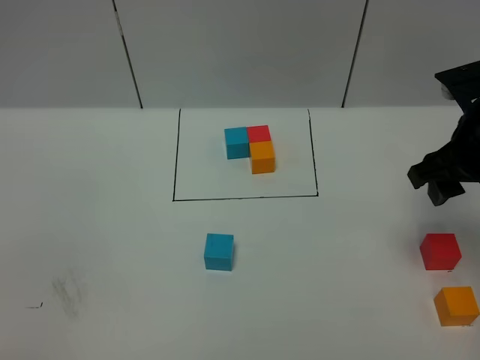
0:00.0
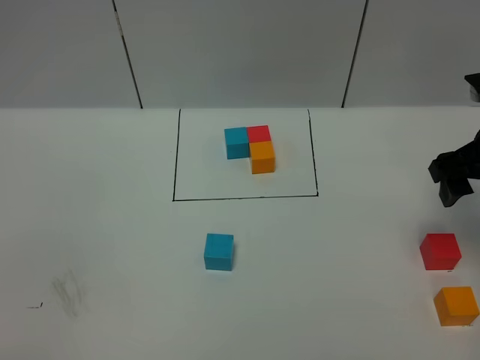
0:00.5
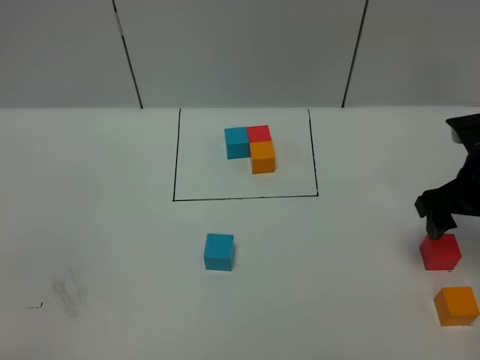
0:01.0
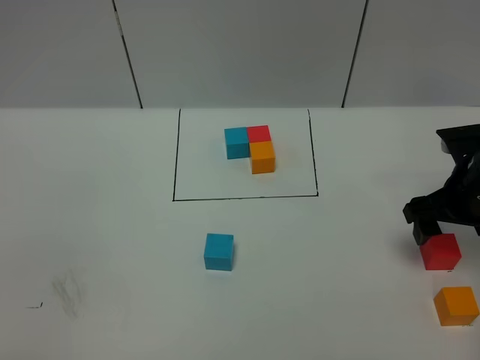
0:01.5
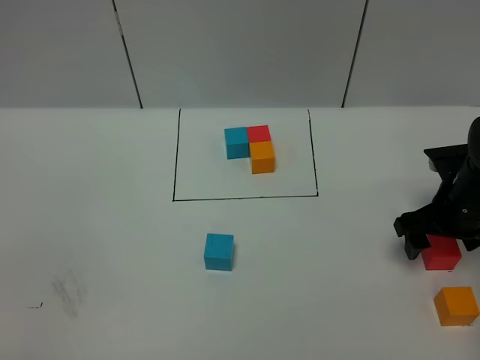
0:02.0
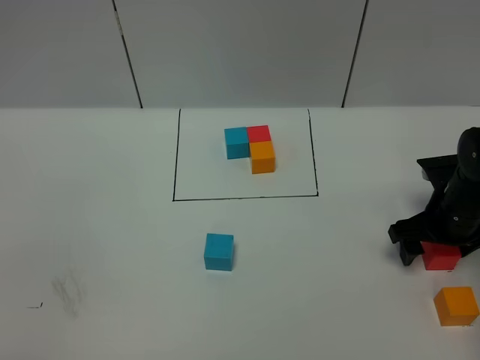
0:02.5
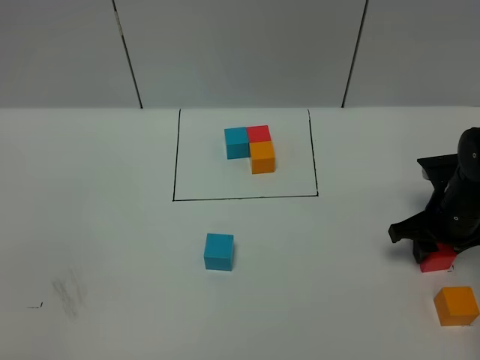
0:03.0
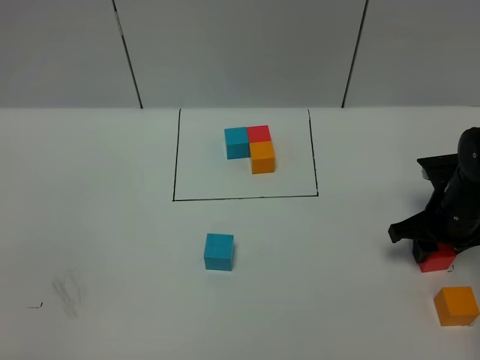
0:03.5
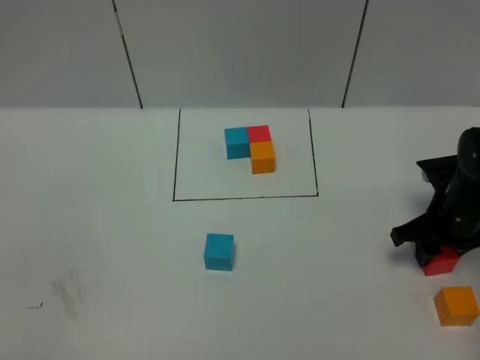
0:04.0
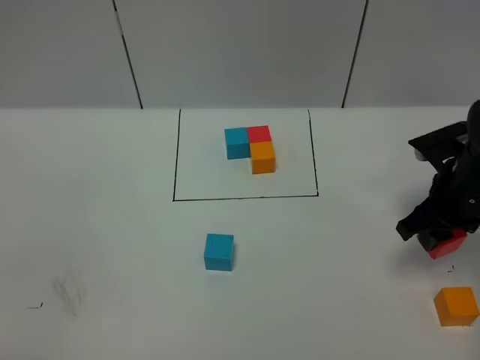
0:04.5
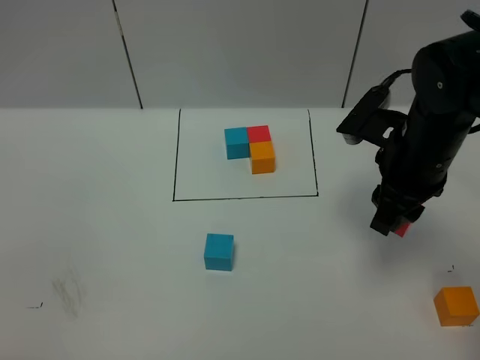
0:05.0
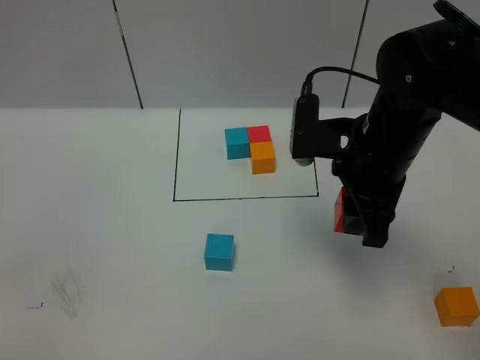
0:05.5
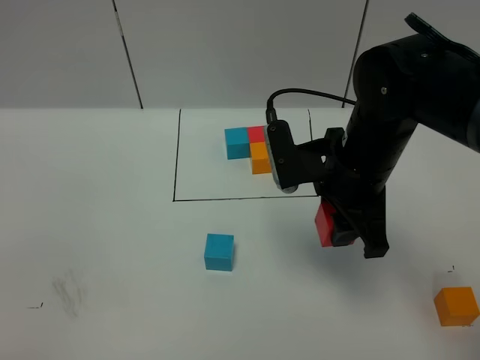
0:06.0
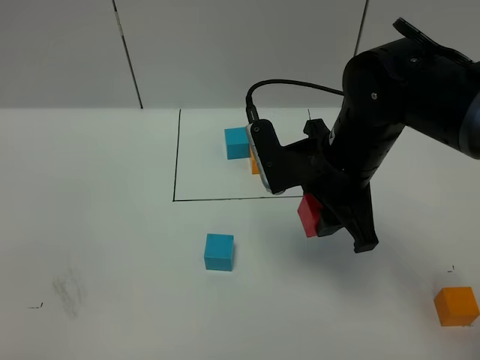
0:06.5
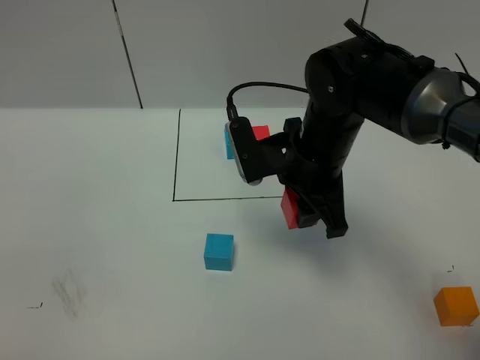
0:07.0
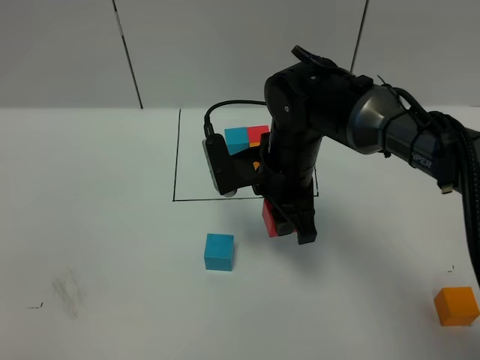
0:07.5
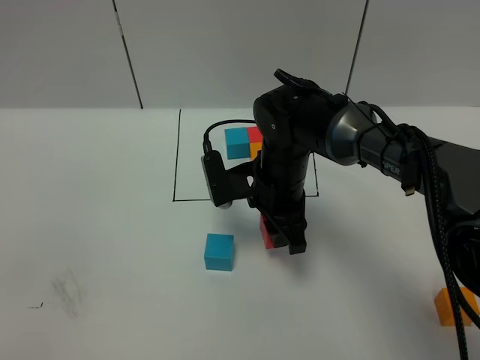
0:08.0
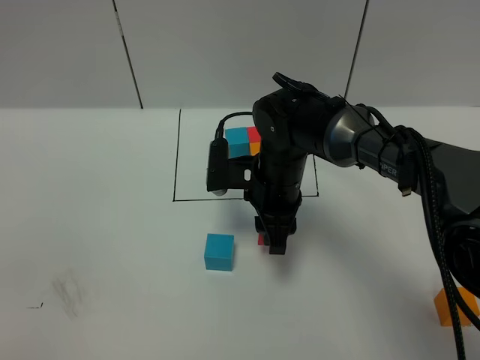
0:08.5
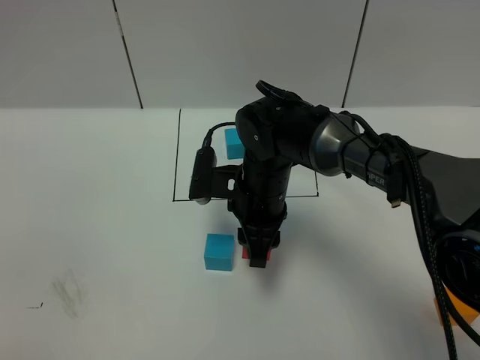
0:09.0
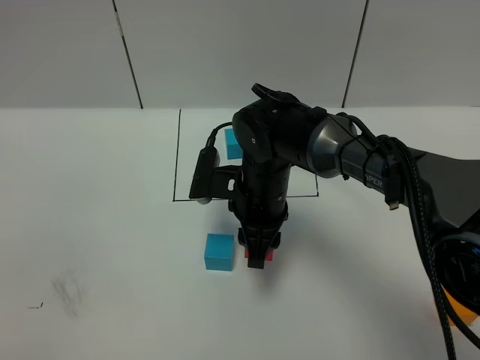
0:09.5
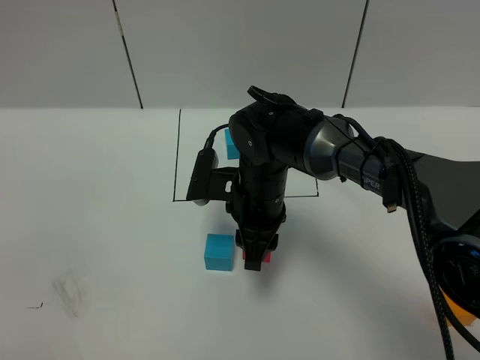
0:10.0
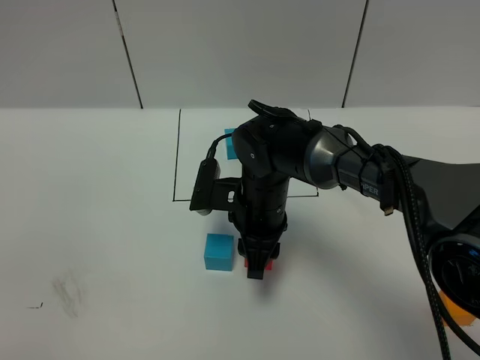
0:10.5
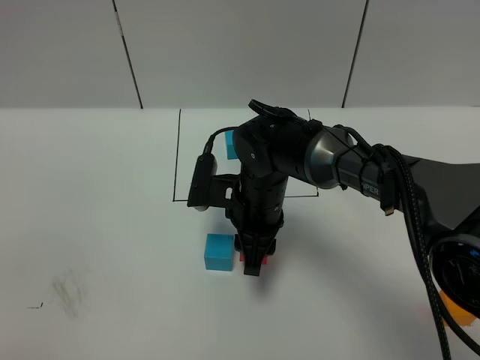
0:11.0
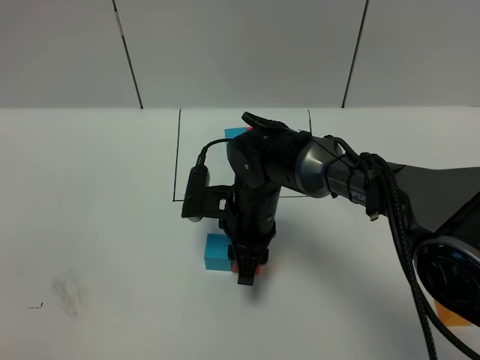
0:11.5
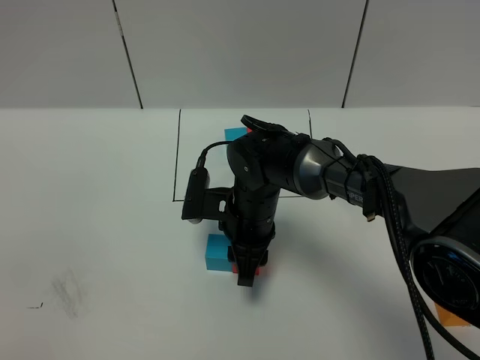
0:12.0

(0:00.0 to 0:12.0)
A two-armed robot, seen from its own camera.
Task of the whole recording: According to the building block template in front, assemble the scattered blocks together.
0:00.0 - 0:02.0: The right gripper heads downward, covering some 15 cm, and opens.
0:02.0 - 0:04.0: The right gripper closes its fingers.
0:04.0 - 0:06.0: The right gripper shifts some 20 cm to the left and upward.
0:06.0 - 0:08.0: The right gripper travels downward, to the left and forward by approximately 15 cm.
0:10.0 - 0:12.0: The grippers make only small movements.

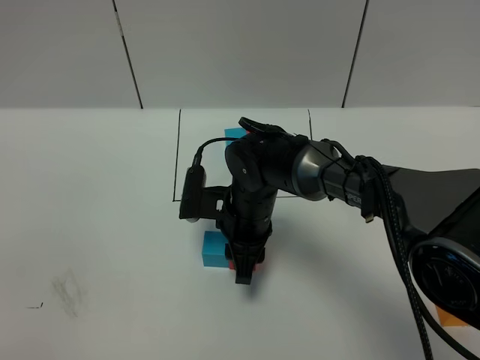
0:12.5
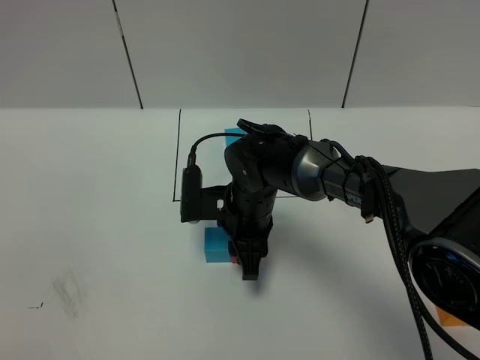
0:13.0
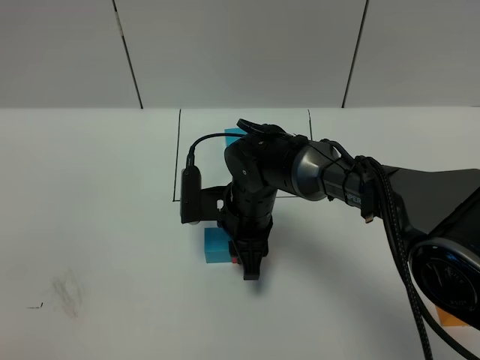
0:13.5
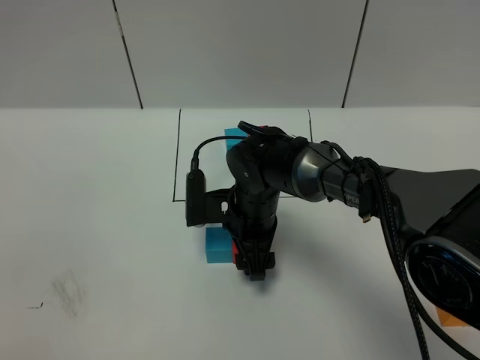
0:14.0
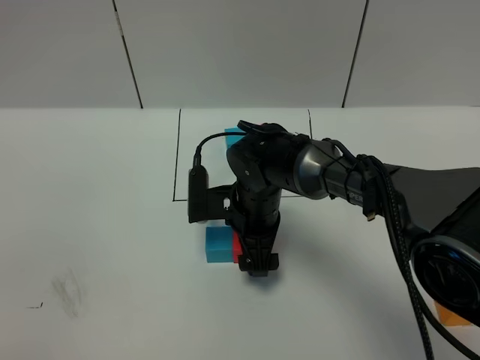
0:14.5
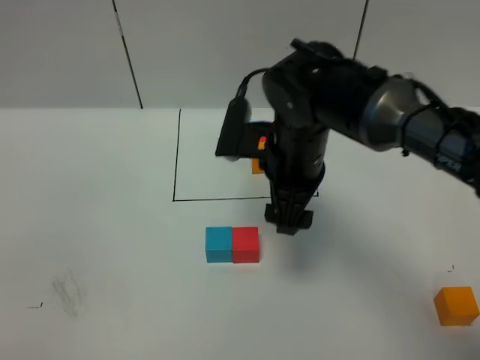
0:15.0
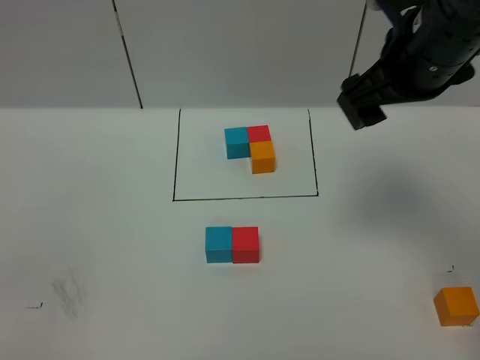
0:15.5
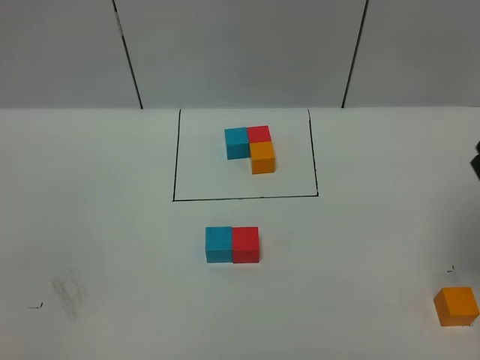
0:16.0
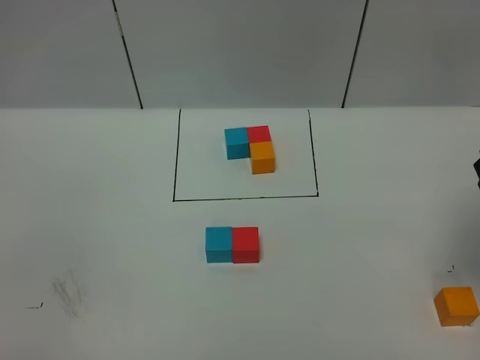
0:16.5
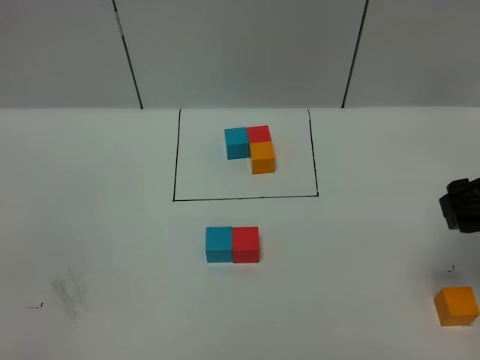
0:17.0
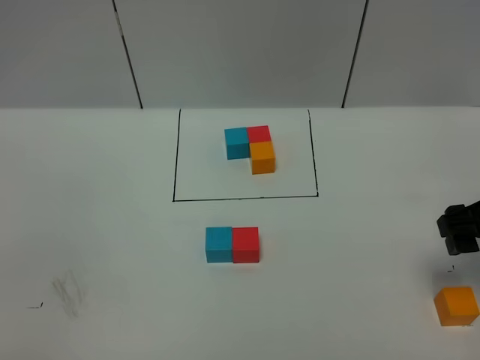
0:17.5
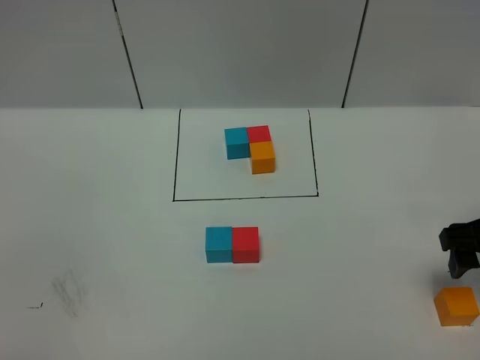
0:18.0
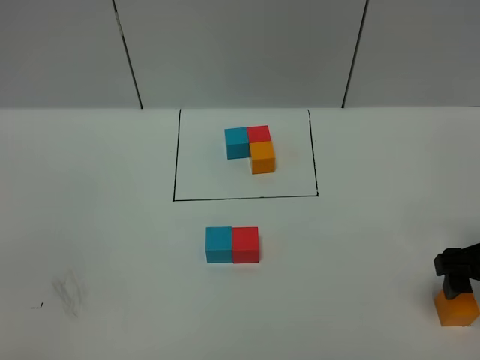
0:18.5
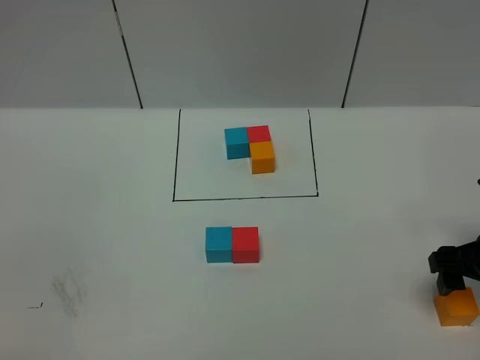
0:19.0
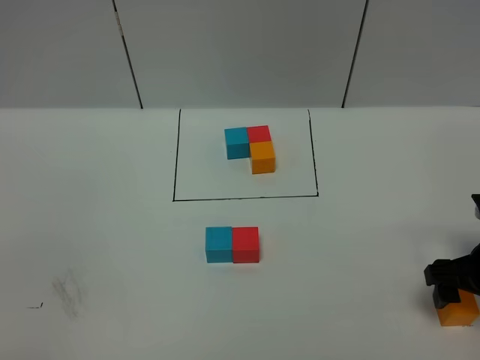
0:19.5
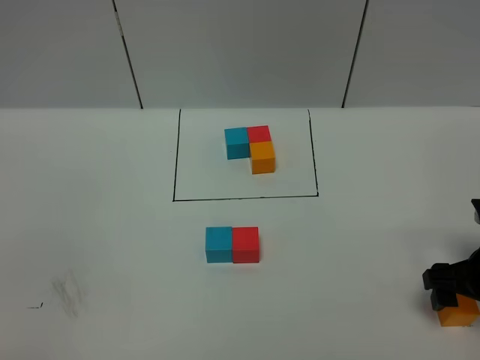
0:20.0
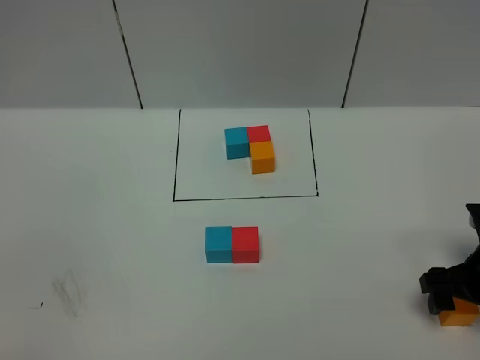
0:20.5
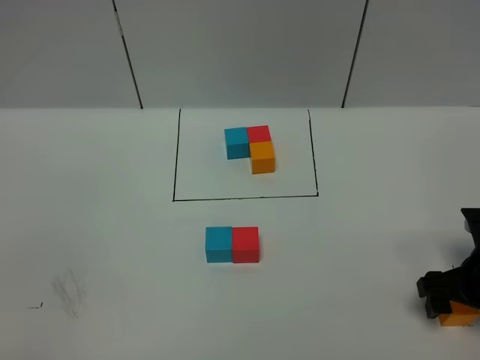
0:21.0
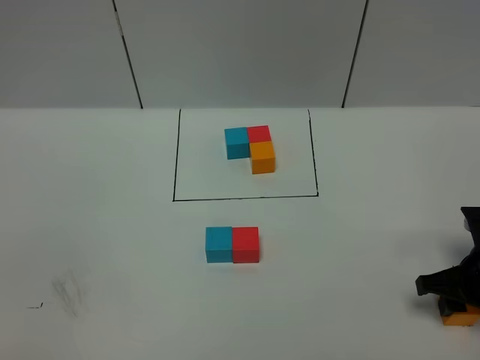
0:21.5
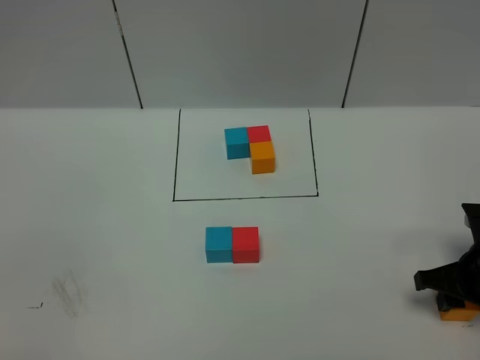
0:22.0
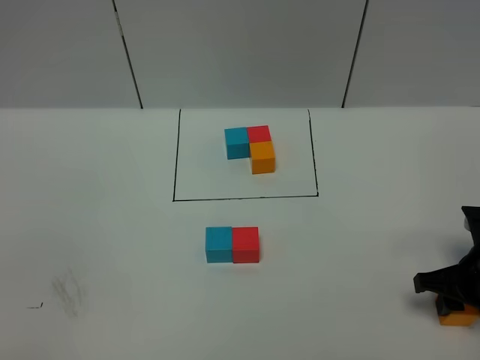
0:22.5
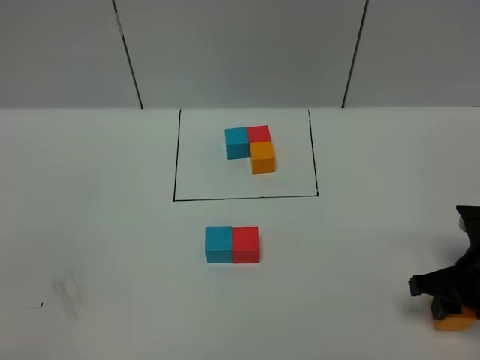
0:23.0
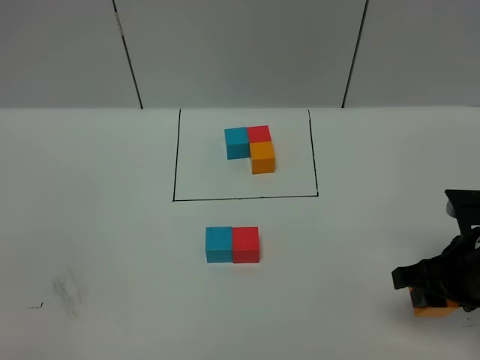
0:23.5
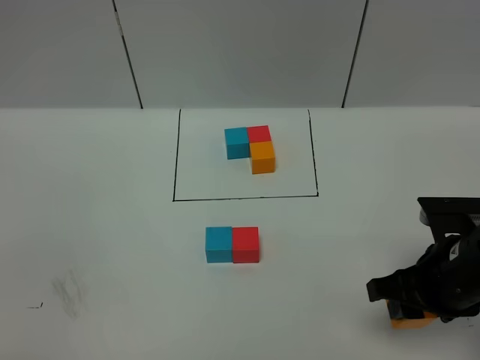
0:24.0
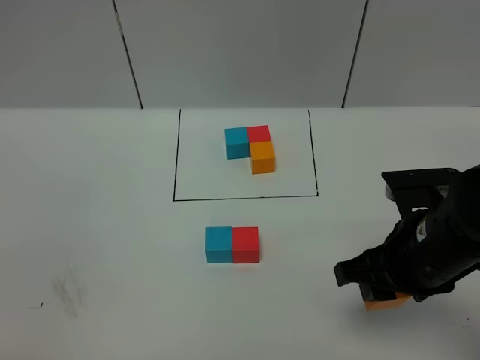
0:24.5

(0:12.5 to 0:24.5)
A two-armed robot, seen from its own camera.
Task of the whole recording: According to the building block template in front, assemble the scattered blocks together.
Step, 0:12.5 - 0:14.5: Put the red cube on the right of the blue cube.
0:12.5 - 0:14.5: The right gripper opens its fingers.
0:14.5 - 0:16.5: The right gripper is displaced to the right and upward by about 35 cm.
0:16.5 - 0:18.5: The right gripper heads downward, covering some 15 cm.
0:18.5 - 0:20.5: There are only small adjustments of the grippers.
0:20.5 - 0:22.5: The right gripper closes up.
0:22.5 - 0:24.5: The right gripper shifts some 15 cm to the left and upward.

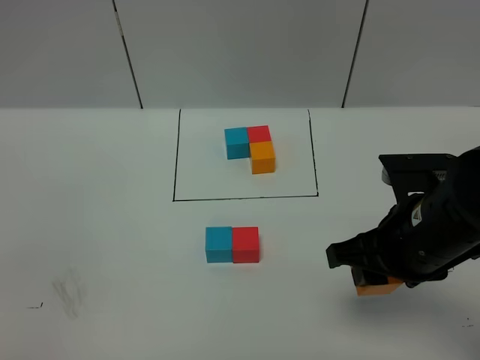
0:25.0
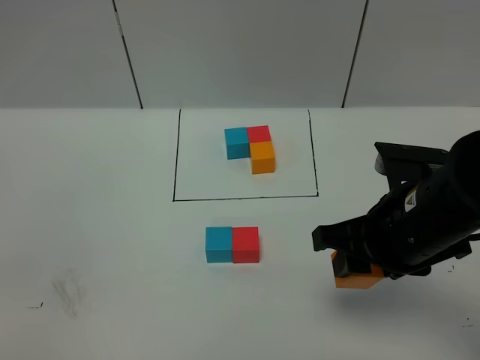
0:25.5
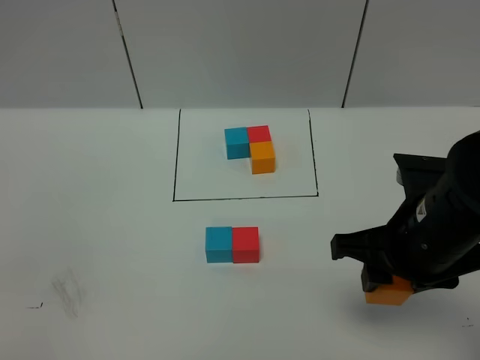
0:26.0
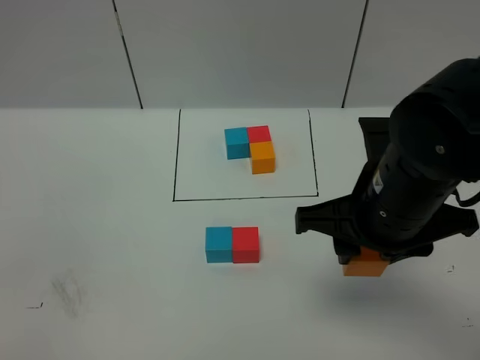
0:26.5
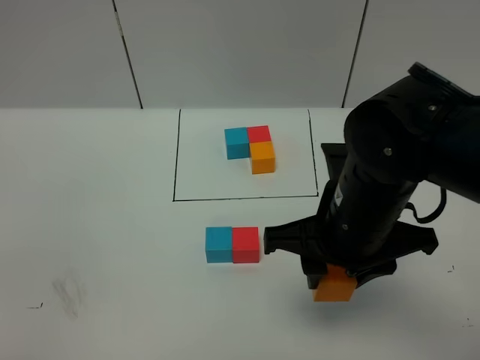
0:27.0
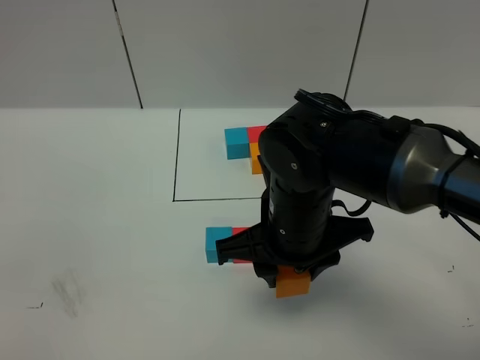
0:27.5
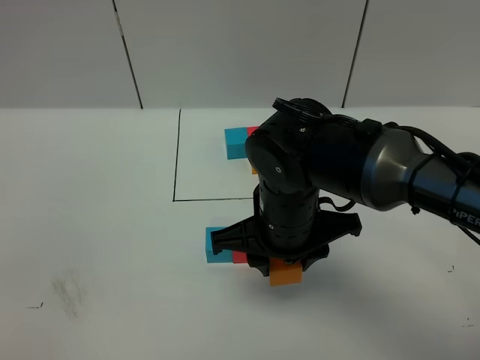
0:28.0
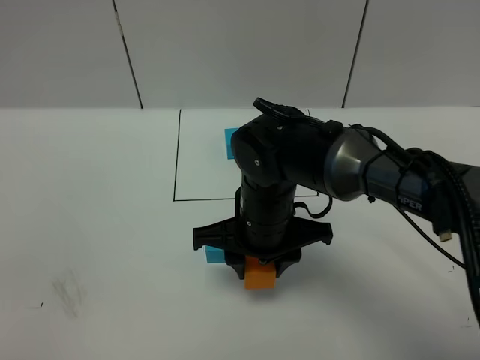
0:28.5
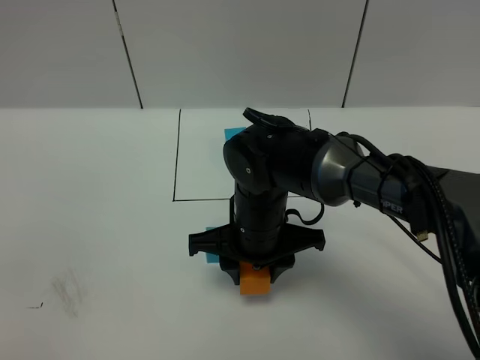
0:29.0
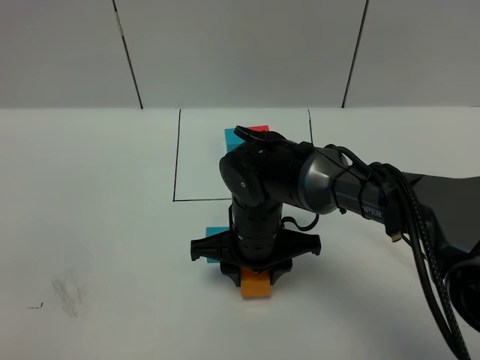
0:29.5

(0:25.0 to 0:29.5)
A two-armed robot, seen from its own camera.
Task of the whole recording: According to the building block template in front, assemble the scattered blocks together.
0:25.0 - 0:27.0: The right gripper goes some 5 cm to the left.
0:27.0 - 0:29.5: The right gripper travels downward, to the left and forward by roughly 15 cm.
